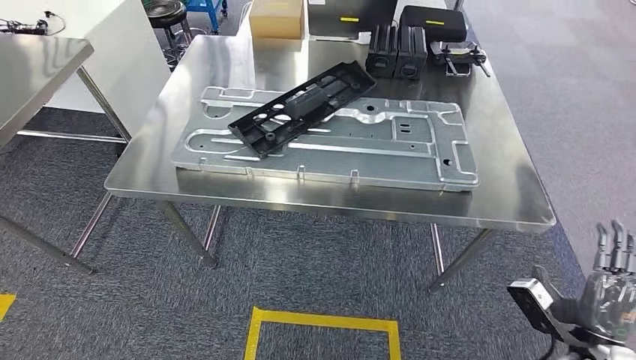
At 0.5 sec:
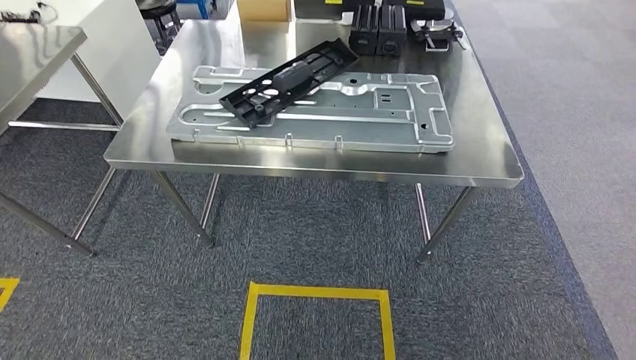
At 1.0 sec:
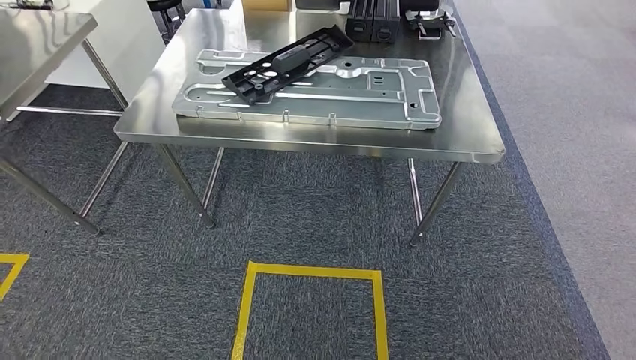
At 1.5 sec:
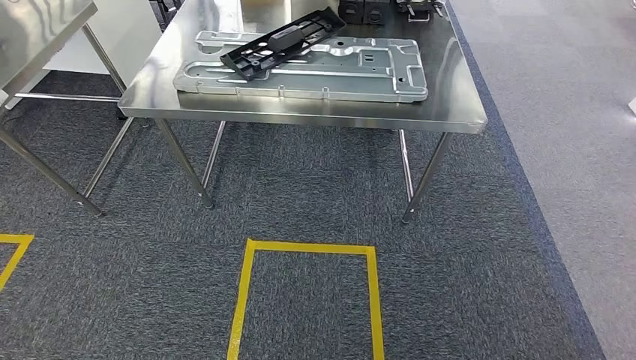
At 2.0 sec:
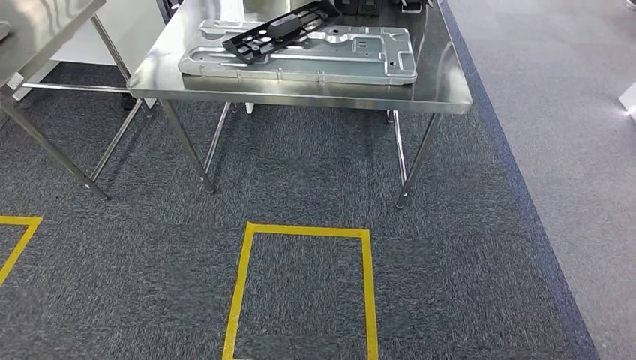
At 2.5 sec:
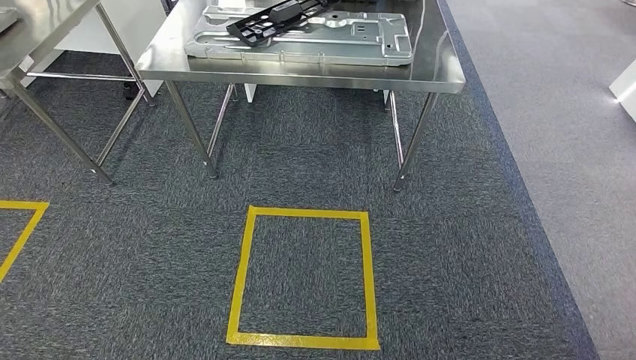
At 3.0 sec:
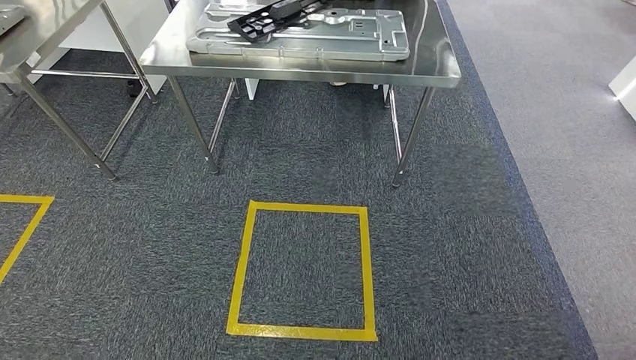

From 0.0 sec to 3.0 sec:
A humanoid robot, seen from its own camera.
Step, from 0.0 sec to 3.0 sec: Return to the initial position at the shelf.
